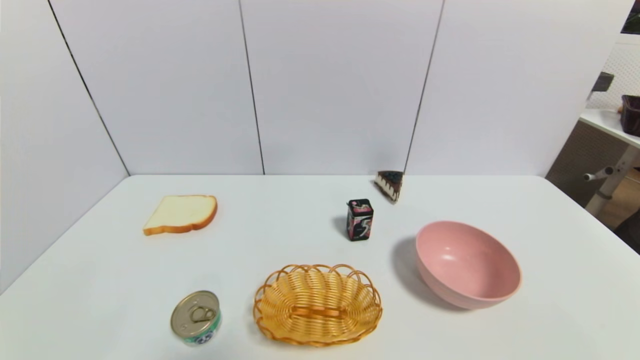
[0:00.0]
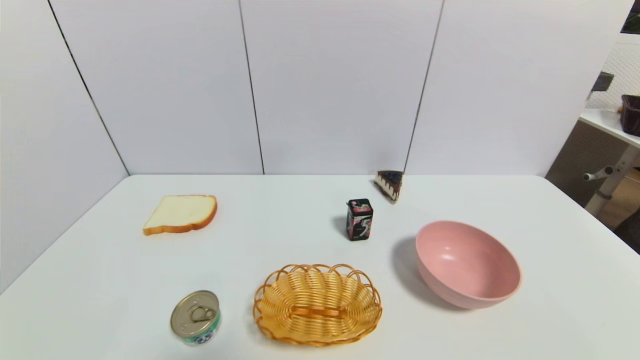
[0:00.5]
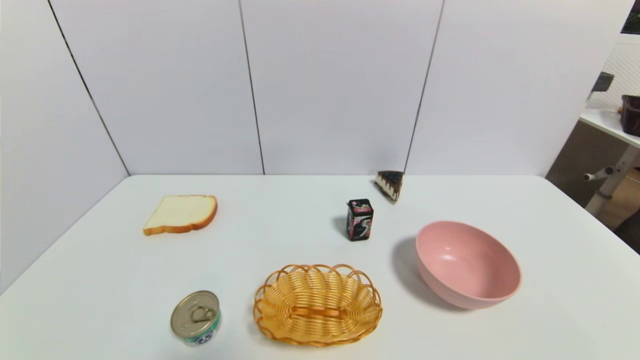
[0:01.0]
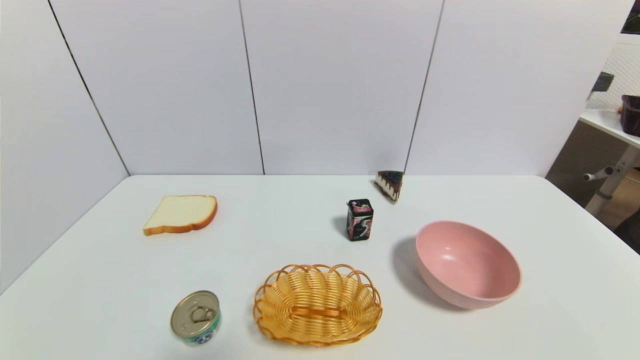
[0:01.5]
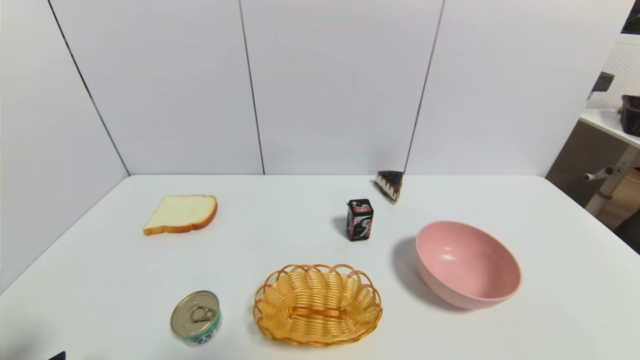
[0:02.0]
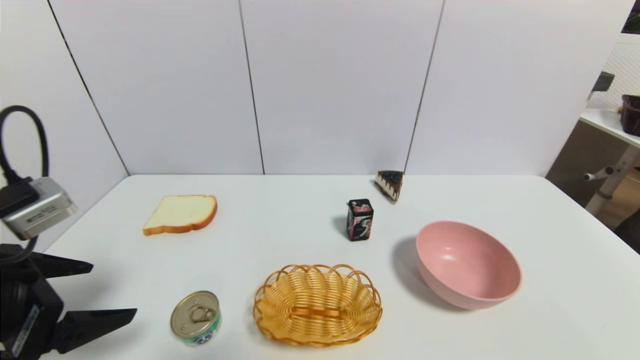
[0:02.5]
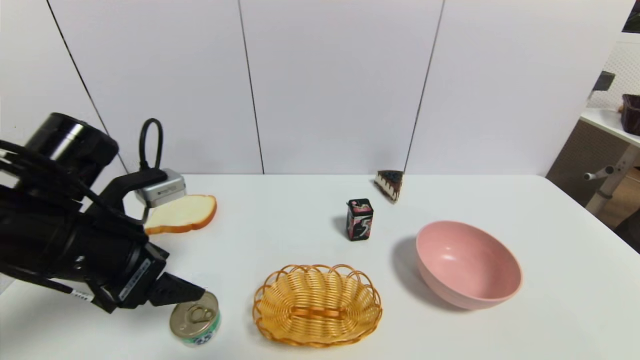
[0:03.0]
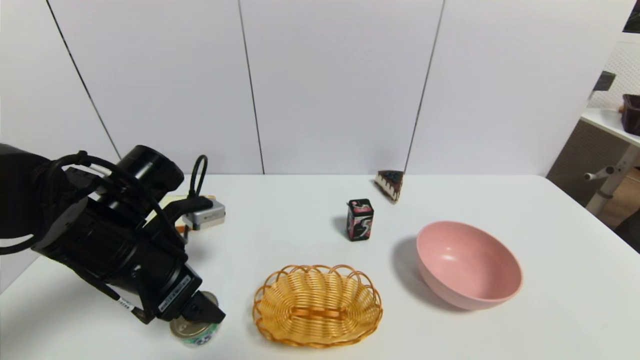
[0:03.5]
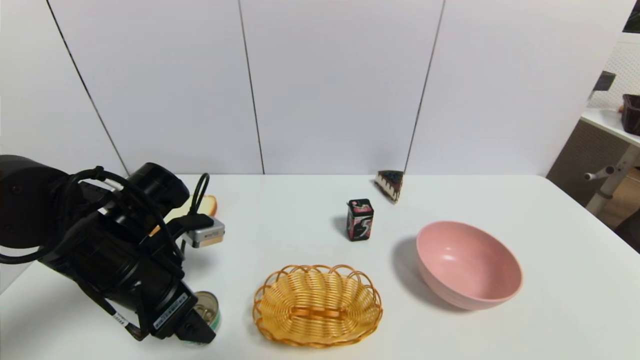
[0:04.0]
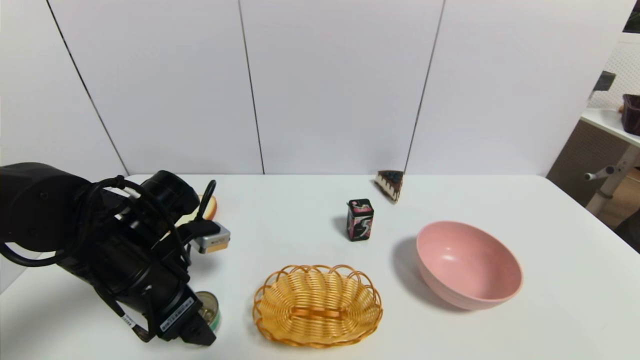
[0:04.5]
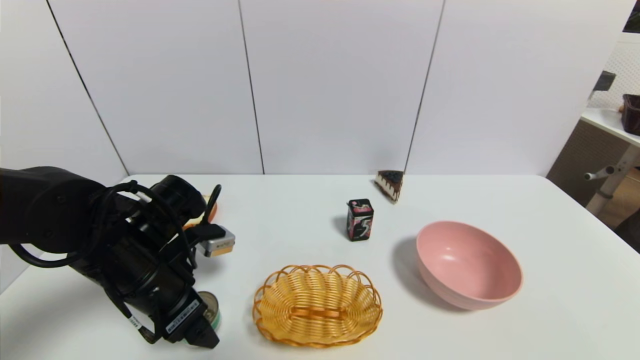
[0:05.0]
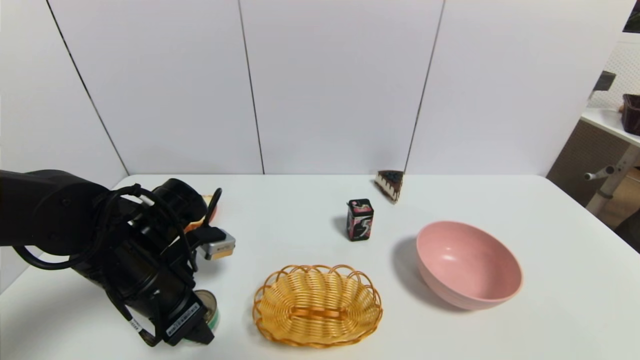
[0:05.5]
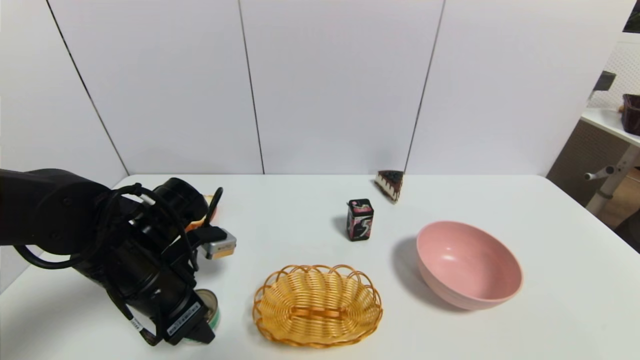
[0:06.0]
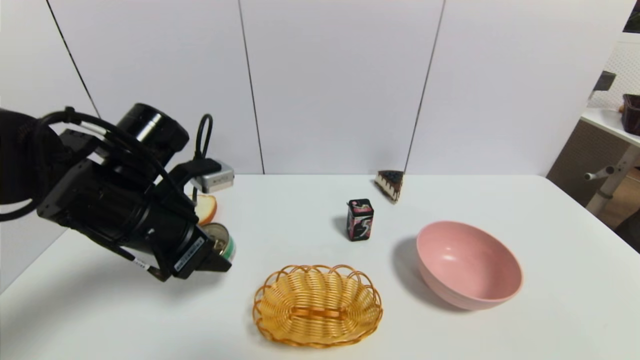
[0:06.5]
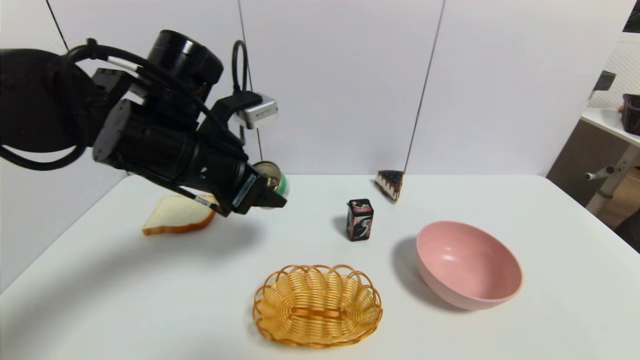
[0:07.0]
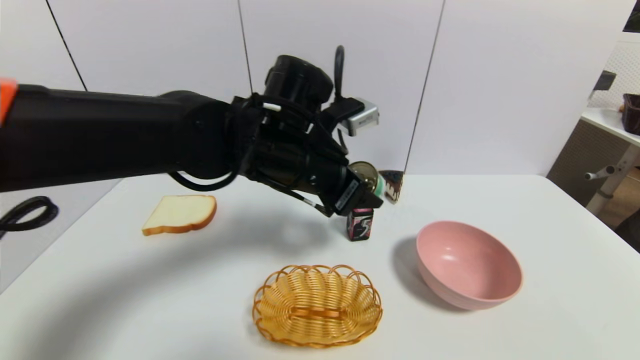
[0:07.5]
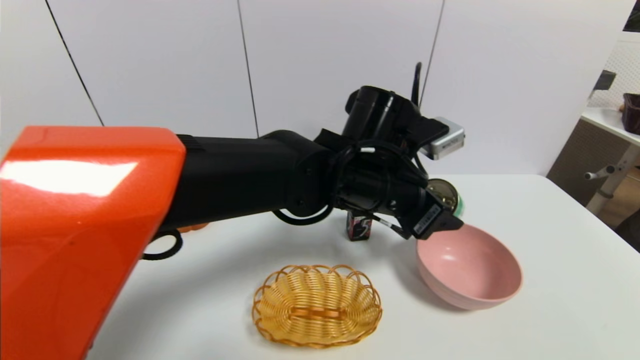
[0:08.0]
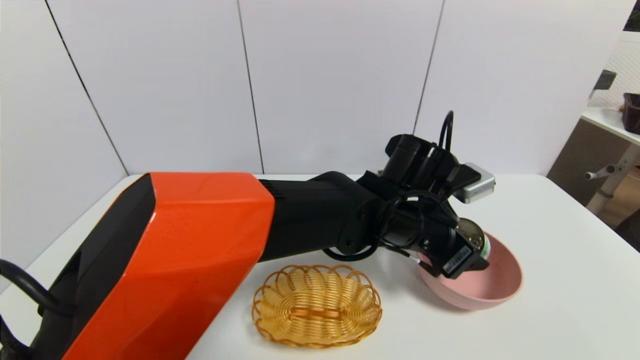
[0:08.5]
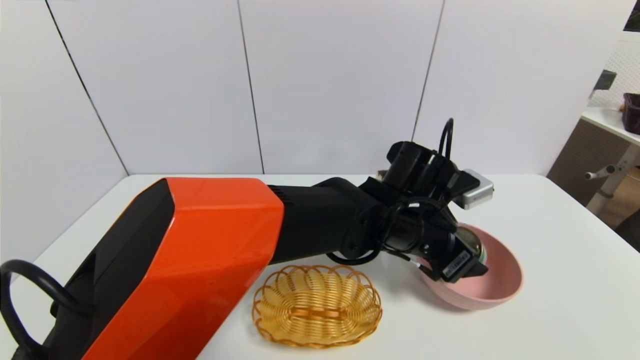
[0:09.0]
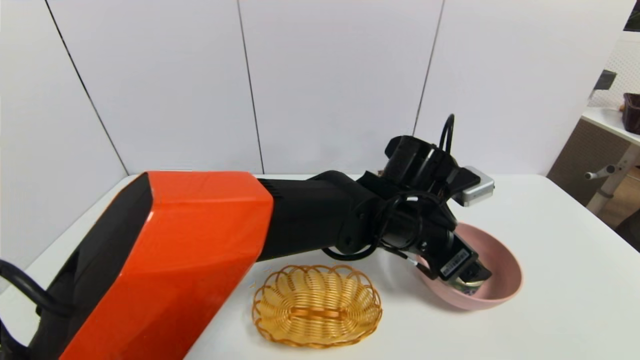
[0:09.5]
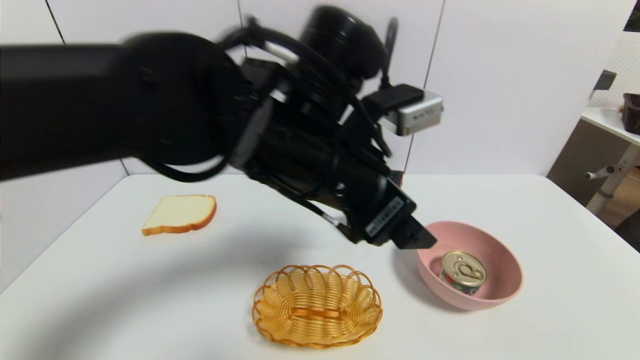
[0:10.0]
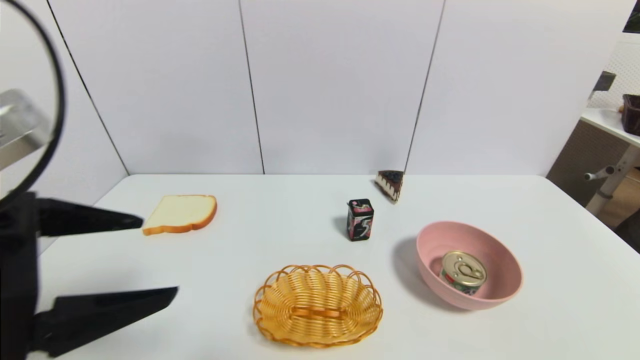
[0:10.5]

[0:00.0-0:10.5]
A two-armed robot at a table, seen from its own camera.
Task of the whole recording: use a gripper to pick the target object and place on the pink bowl.
Step, 0:00.0 to 0:05.5: Grasp the tin with the left gripper.
Step, 0:06.0 to 0:09.0: Place the tin on the pink bowl with the left gripper.
0:02.0 to 0:04.0: The left gripper travels forward and to the right by some 20 cm.
0:04.0 to 0:06.5: The left gripper is displaced upward by about 5 cm, and closes up.
0:06.5 to 0:08.5: The left gripper shifts roughly 30 cm to the right.
0:08.5 to 0:10.5: The left gripper travels to the left and backward by approximately 40 cm, and opens its fingers.
